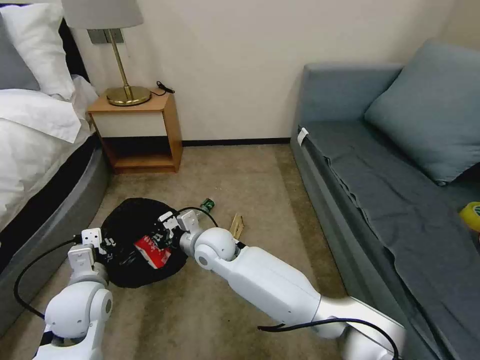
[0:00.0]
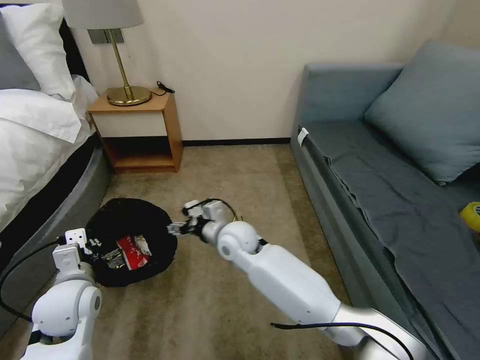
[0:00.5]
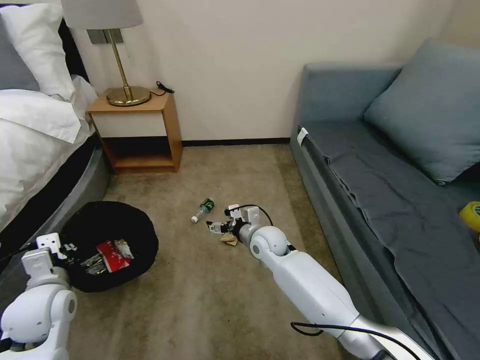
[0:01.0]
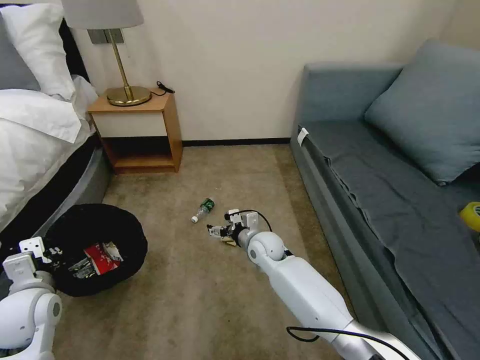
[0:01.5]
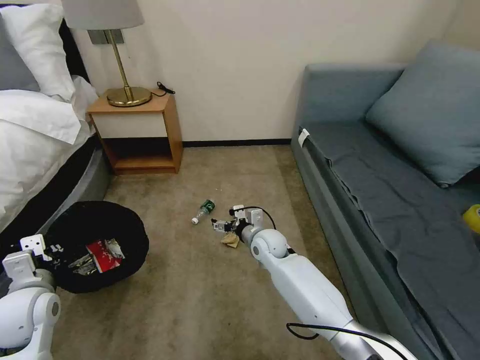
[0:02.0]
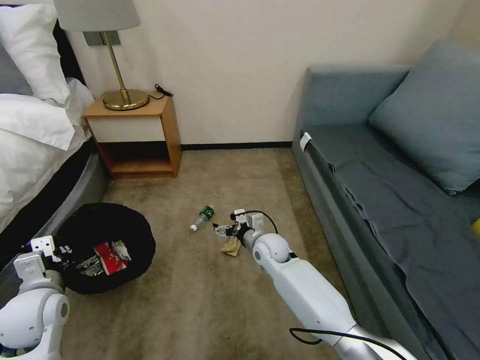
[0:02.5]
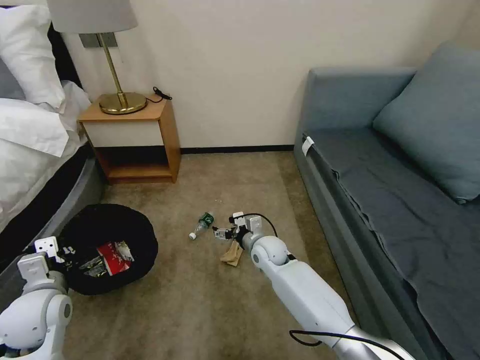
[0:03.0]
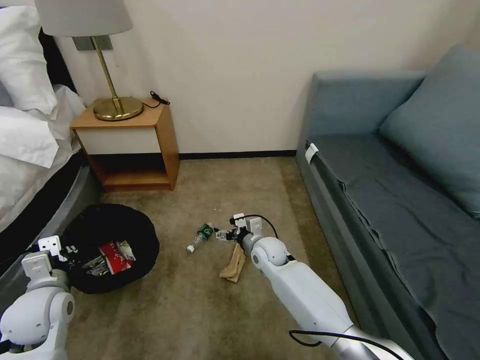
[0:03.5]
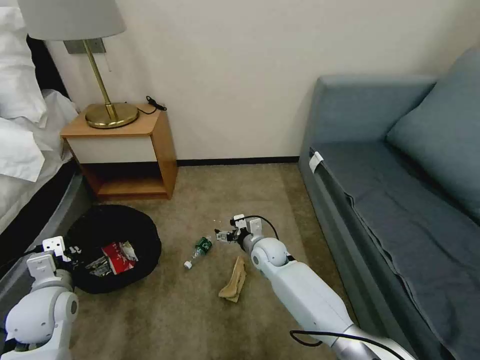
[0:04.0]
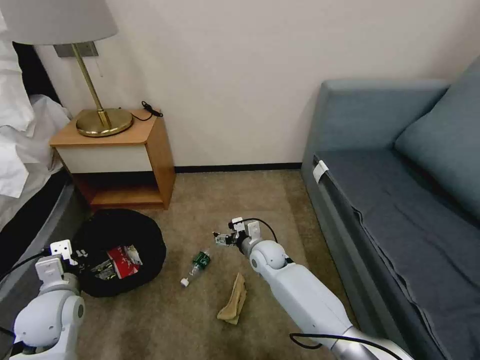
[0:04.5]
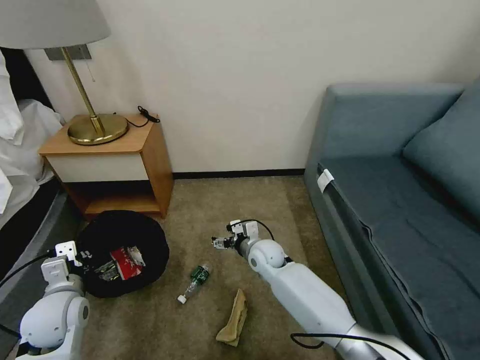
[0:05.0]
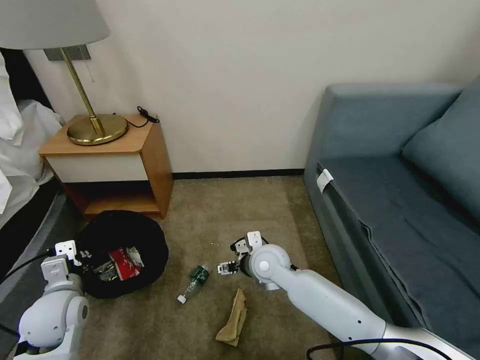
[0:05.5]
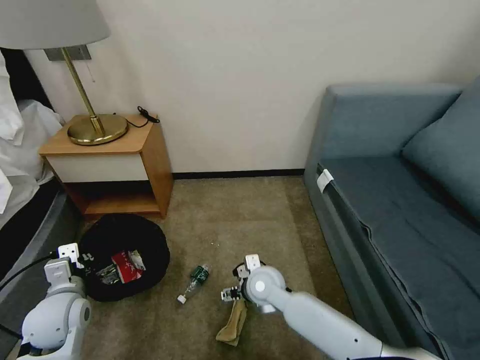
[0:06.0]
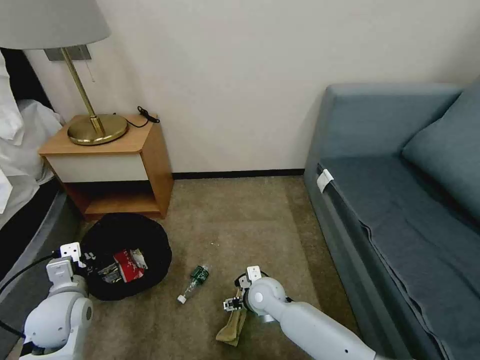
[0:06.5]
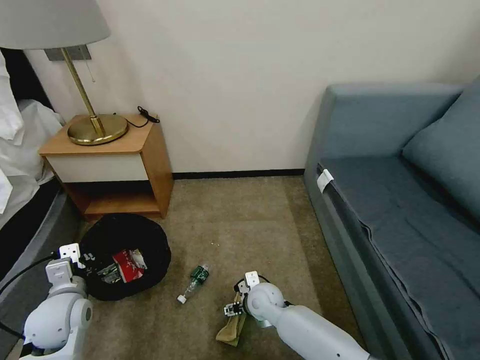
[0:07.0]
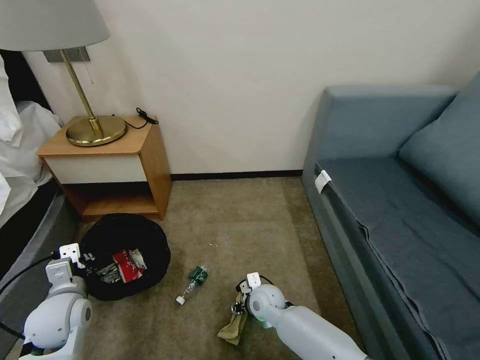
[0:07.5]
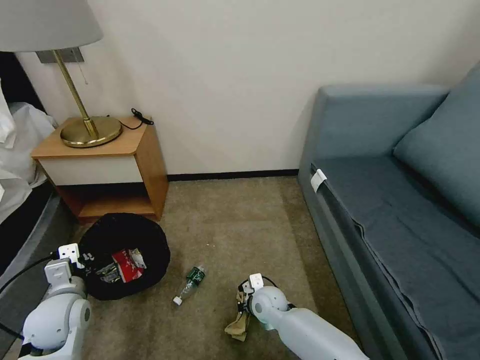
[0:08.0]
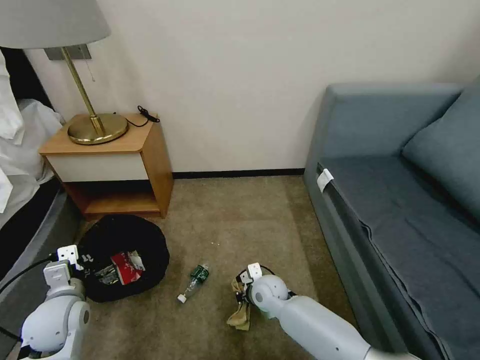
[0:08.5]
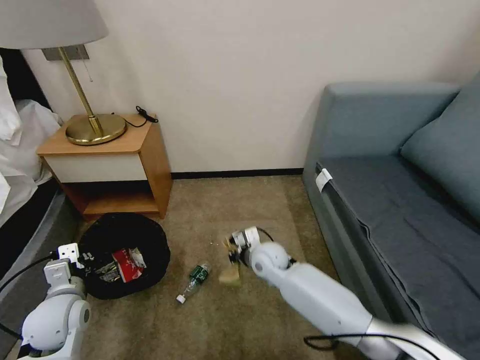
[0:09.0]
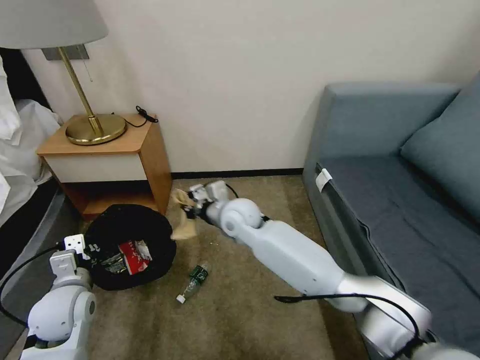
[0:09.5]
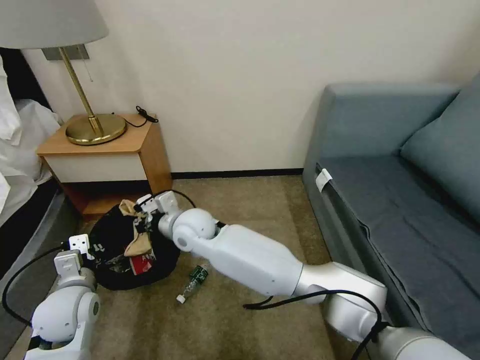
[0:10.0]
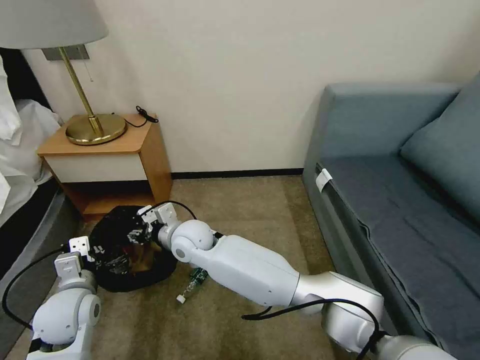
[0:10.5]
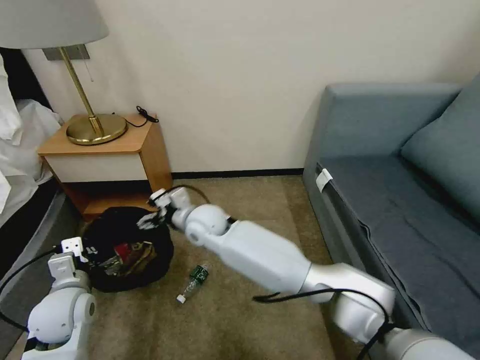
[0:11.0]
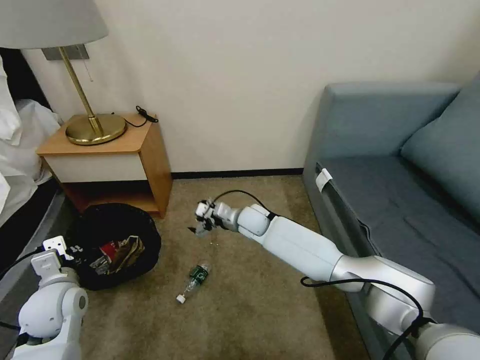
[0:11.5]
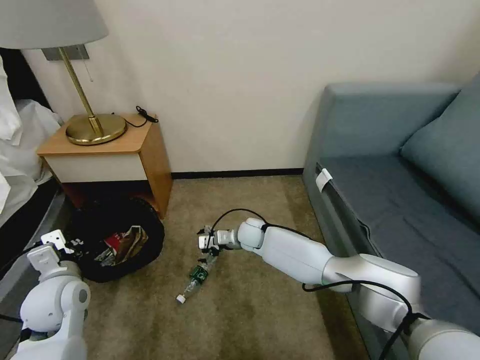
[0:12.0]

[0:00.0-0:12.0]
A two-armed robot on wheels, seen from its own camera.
Task of the whole recording: Pick up the trash bin, then pick up the garbage on the floor and place it into the trash bin.
0:00.0 to 0:02.0: The left gripper is displaced to the left by about 10 cm. Meanwhile the right gripper is displaced to the right and downward by roughly 15 cm, and opens up.
0:04.0 to 0:06.0: The right gripper goes about 10 cm backward.
0:06.0 to 0:08.0: The right gripper moves downward, some 10 cm, and closes its fingers.
0:08.0 to 0:10.0: The right gripper is displaced upward and to the left by some 30 cm.
0:10.0 to 0:12.0: The right gripper heads downward, to the right and forward, covering roughly 25 cm, and opens.

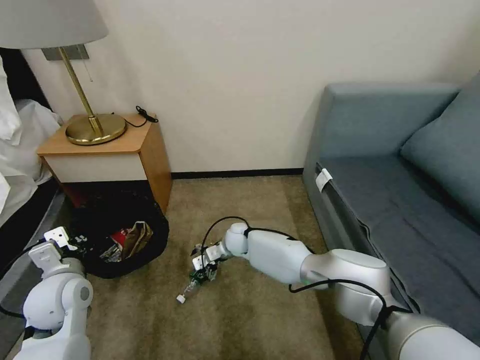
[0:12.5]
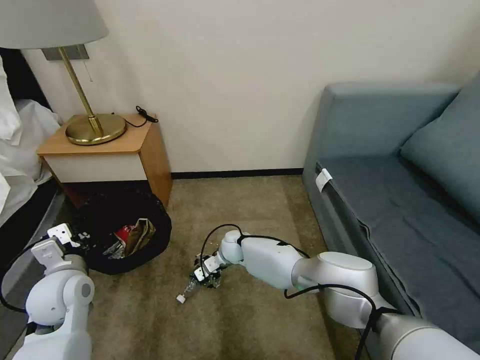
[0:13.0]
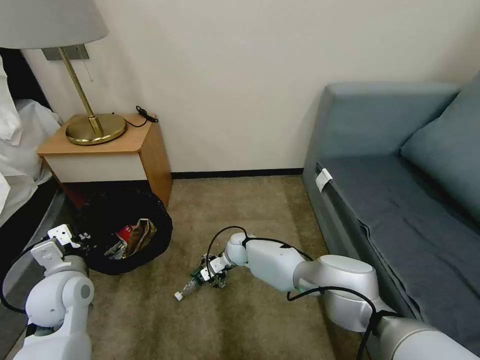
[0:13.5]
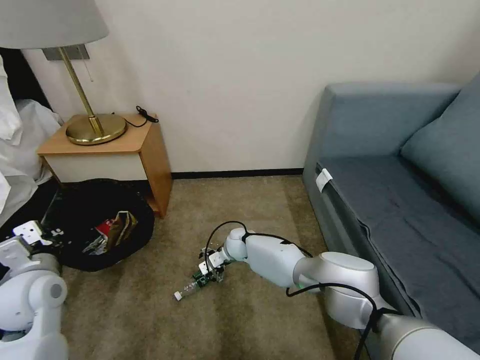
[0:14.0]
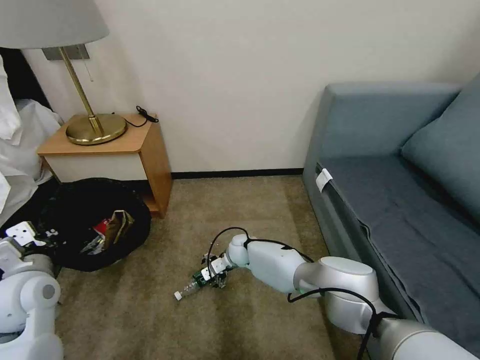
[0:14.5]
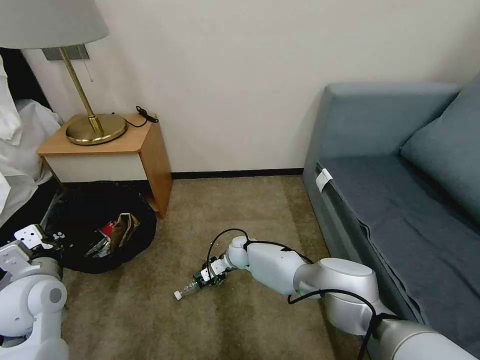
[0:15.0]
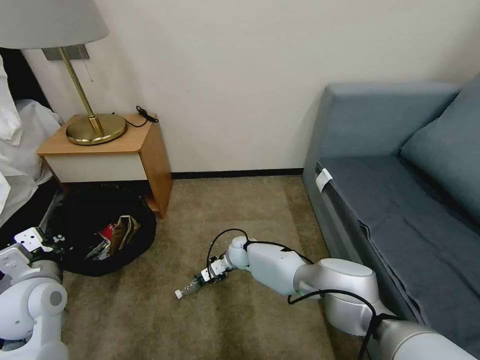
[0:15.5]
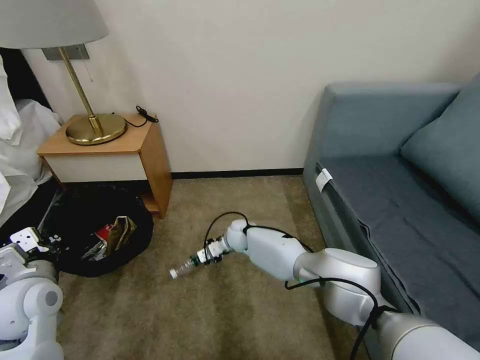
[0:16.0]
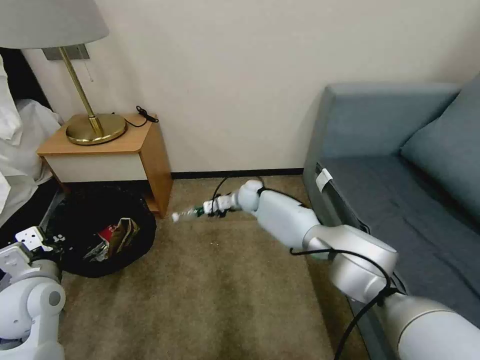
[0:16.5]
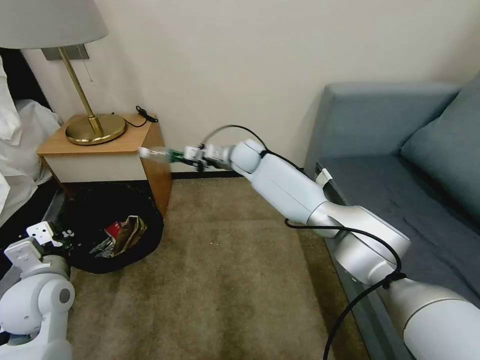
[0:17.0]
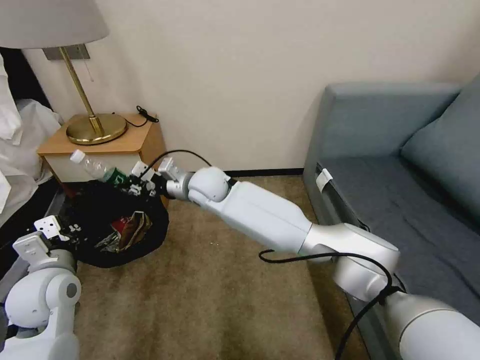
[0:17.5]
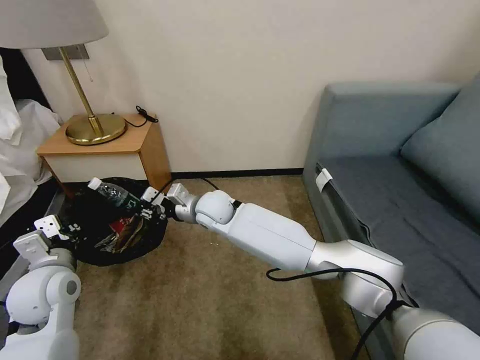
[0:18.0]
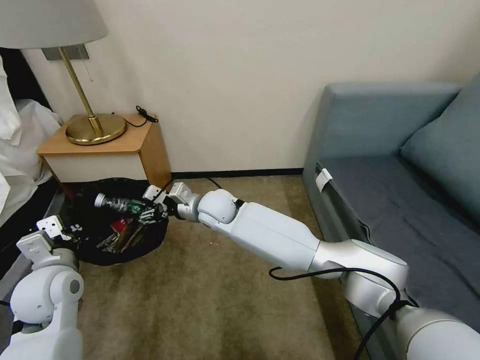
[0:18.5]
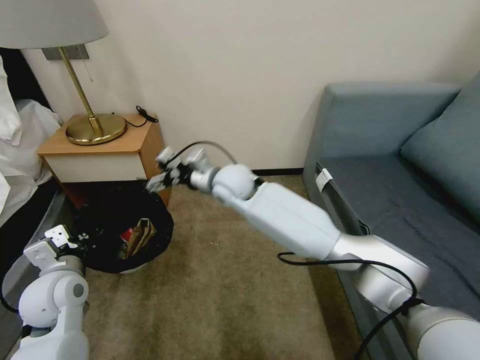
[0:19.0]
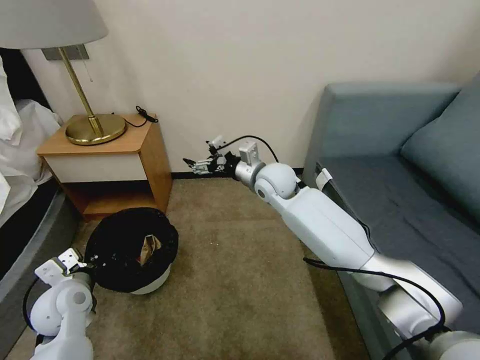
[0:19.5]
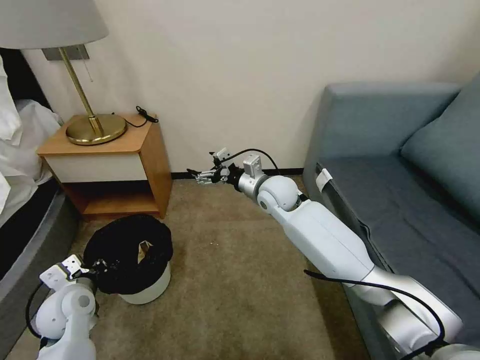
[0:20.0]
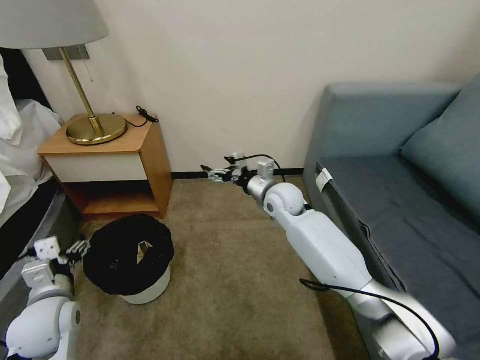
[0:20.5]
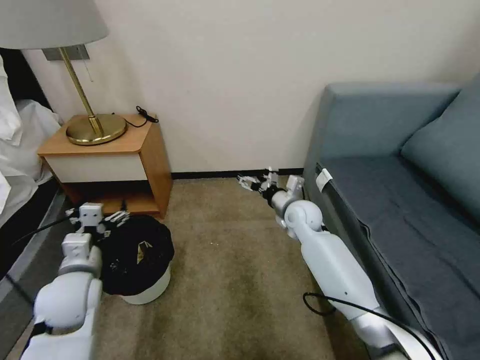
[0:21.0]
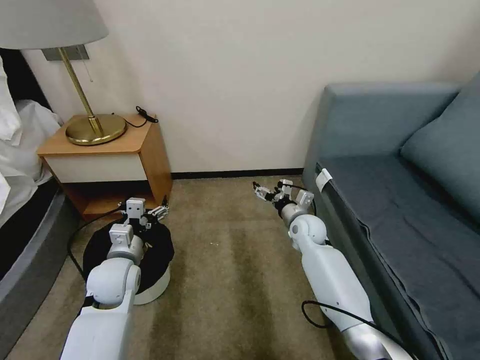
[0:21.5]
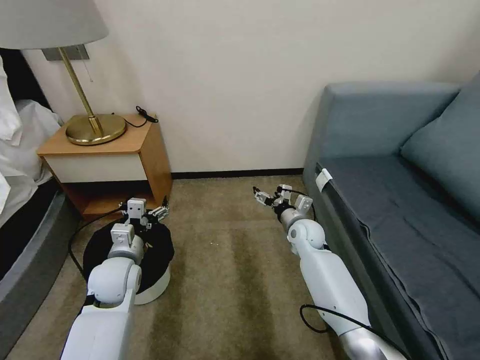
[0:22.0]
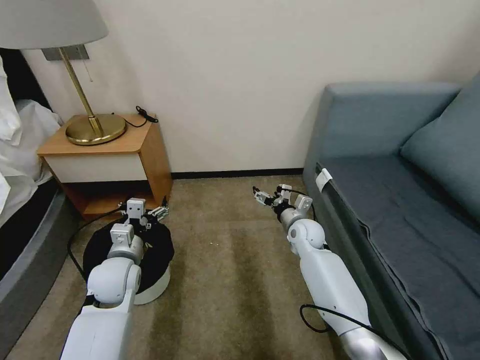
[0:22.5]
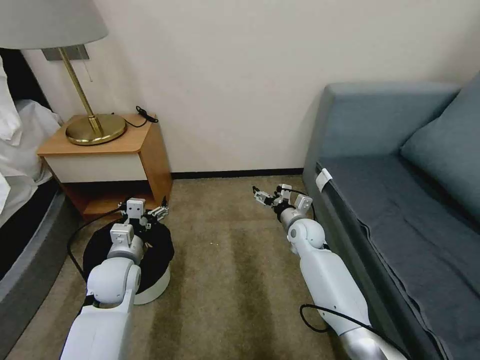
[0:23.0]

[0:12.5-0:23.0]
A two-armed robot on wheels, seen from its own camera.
Task of the whole recording: Pick up the trash bin, then pick up the garbage on the floor and place it into the trash bin.
0:12.5 to 0:14.5: The left gripper shifts by approximately 5 cm.
0:14.5 to 0:16.5: The right gripper heads upward and forward, covering approximately 20 cm, and closes up.
0:16.5 to 0:19.0: The right gripper moves up and down over approximately 15 cm, changing direction 2 times, and opens its fingers.
0:19.0 to 0:21.0: The left gripper opens up; the right gripper shifts about 25 cm to the right and downward.
0:21.0 to 0:23.0: The left gripper goes about 5 cm forward; the right gripper travels downward by approximately 5 cm.
